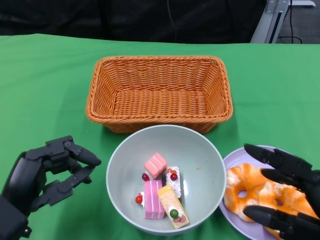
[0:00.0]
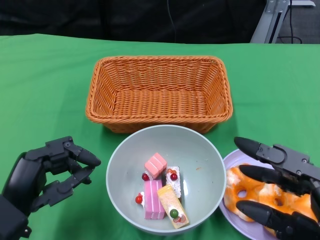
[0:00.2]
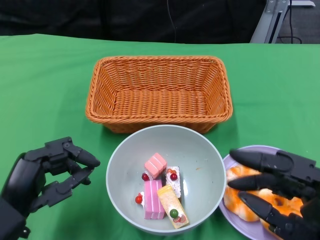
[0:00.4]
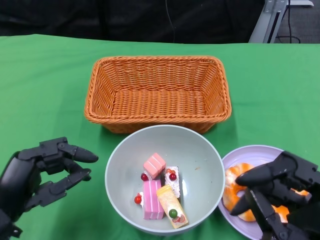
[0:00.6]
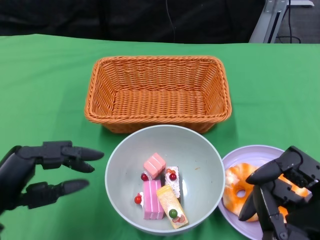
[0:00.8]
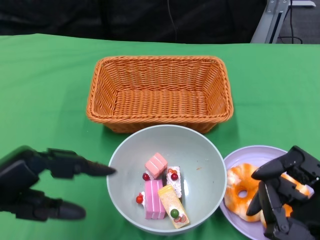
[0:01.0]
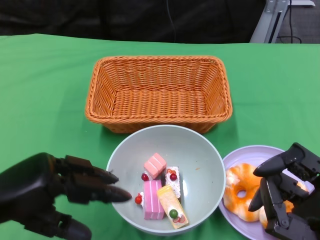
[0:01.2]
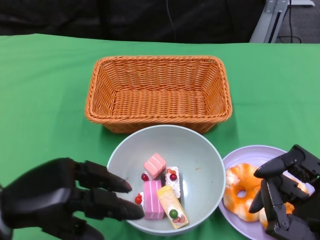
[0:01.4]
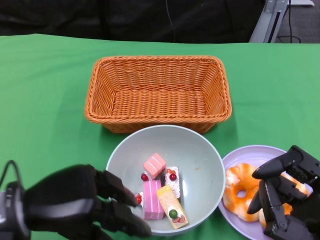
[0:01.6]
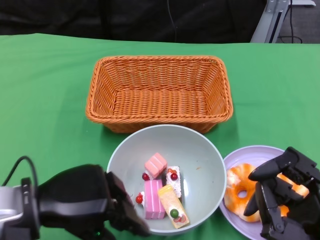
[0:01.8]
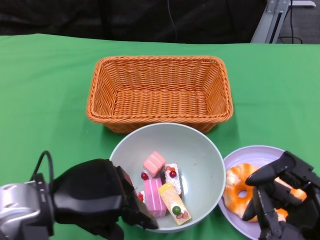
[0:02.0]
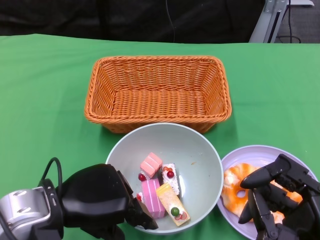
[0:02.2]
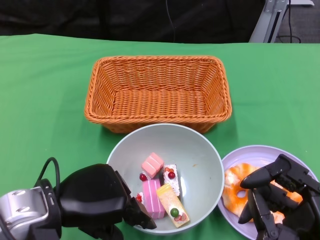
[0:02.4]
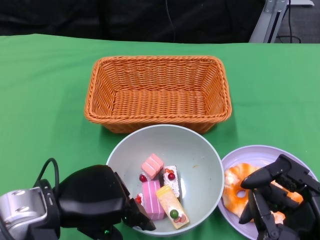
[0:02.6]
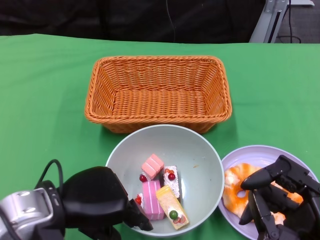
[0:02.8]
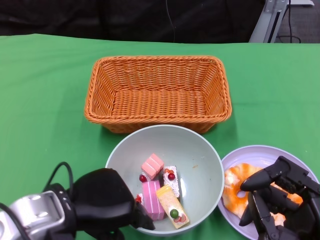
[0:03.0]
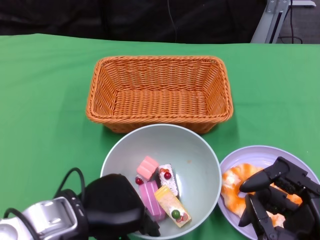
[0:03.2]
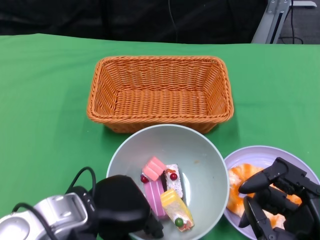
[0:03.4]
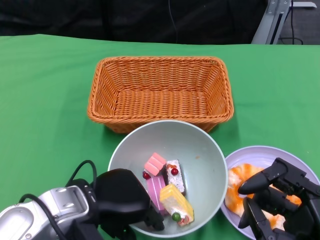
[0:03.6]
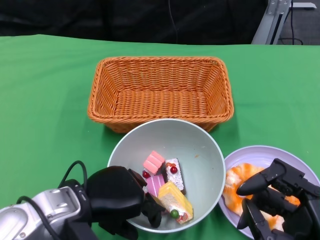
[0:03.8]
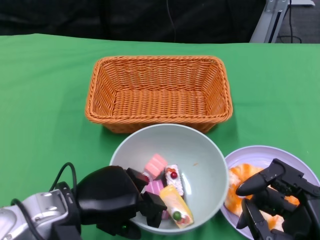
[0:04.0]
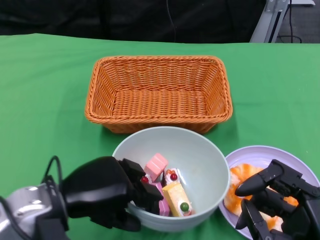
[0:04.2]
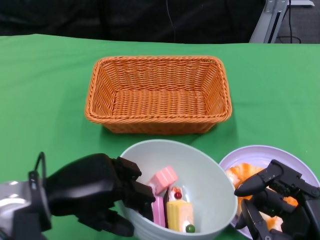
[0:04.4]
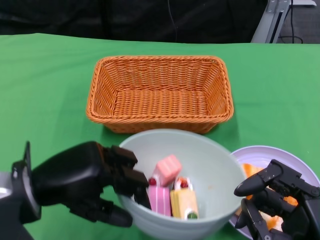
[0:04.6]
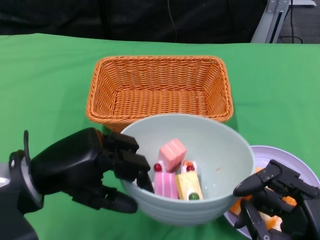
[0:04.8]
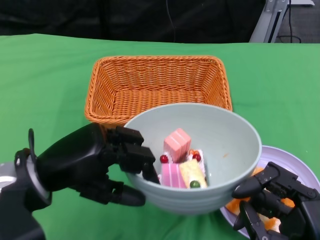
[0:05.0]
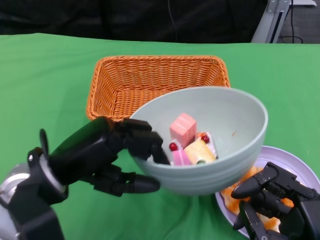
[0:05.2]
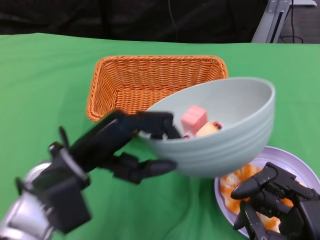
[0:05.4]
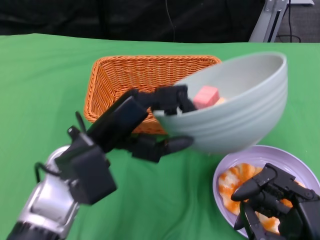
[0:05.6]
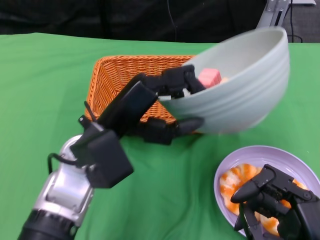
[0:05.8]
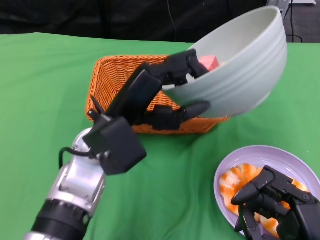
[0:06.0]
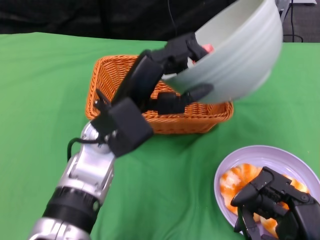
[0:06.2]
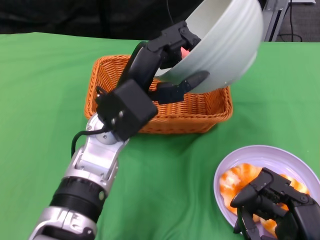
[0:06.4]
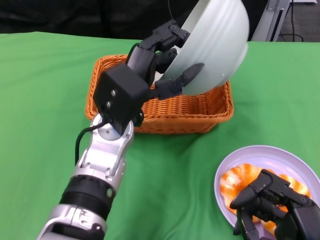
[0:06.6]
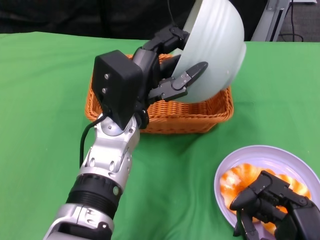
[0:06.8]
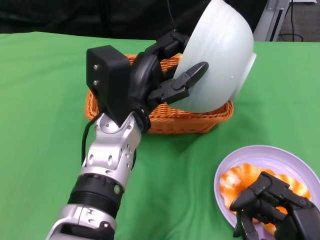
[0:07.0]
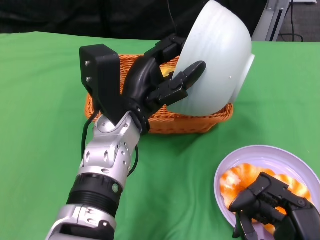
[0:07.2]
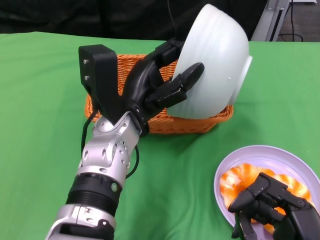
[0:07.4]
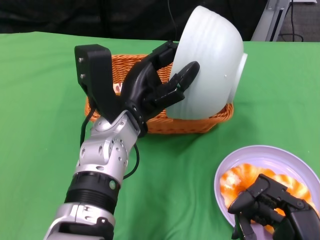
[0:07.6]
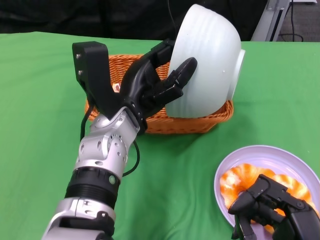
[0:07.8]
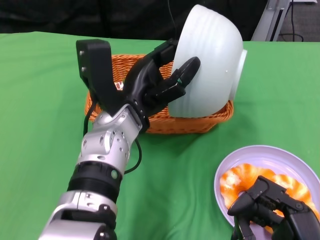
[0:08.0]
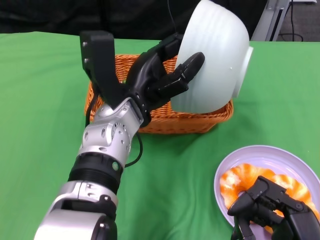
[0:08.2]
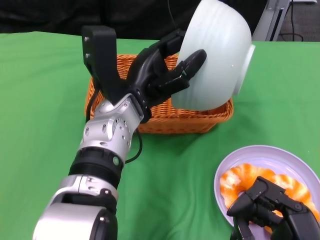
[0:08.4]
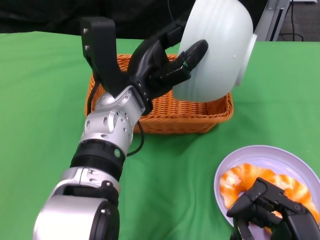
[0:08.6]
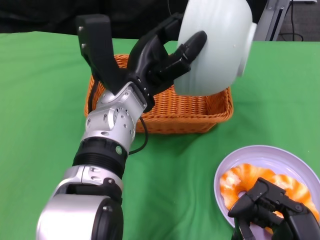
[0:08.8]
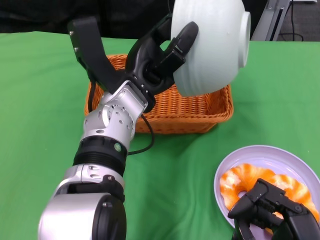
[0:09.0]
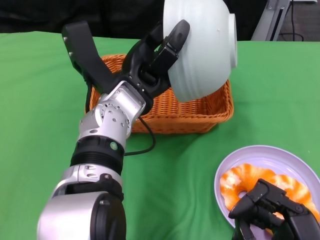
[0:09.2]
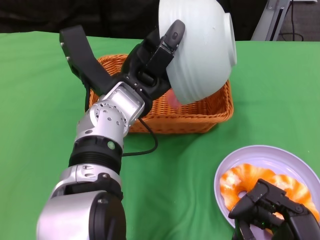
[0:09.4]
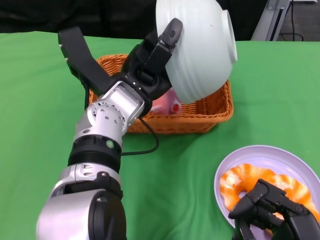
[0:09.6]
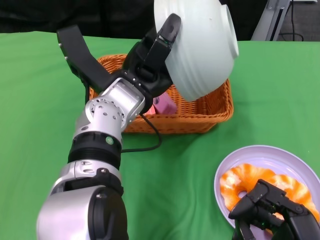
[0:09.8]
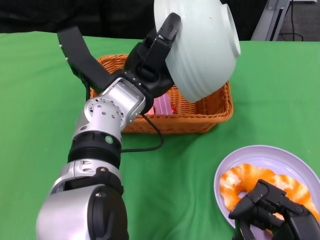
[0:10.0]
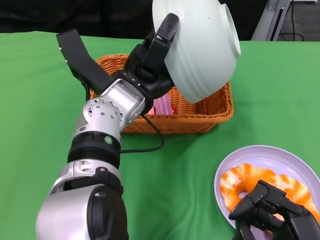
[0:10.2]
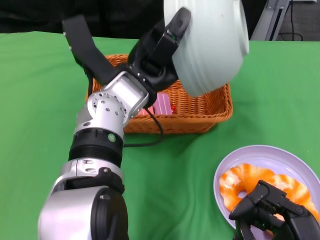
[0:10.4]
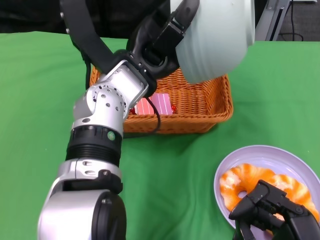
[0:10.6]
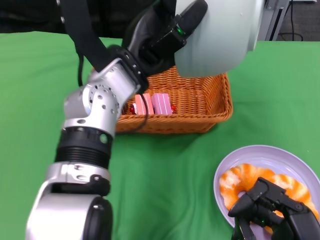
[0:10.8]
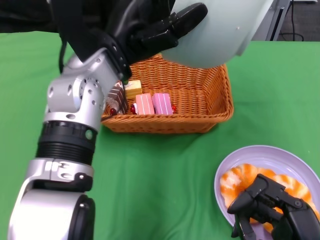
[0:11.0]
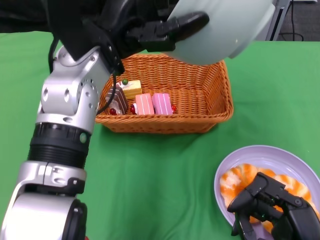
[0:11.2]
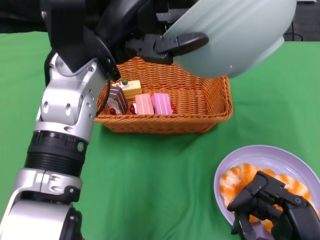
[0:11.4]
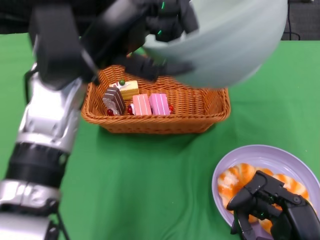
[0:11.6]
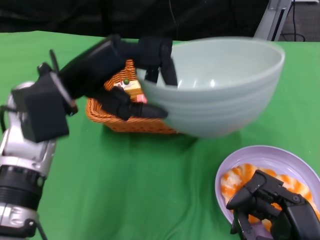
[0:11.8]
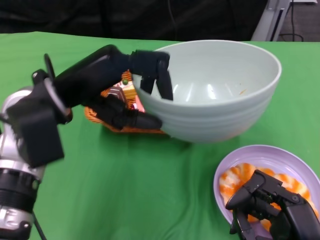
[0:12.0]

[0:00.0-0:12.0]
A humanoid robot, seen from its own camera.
Step, 0:00.2 to 0:03.8: Grasp the bowl with the left gripper.
Step, 0:04.0 to 0:10.4: Pour the cake into the basket with the left gripper.
0:00.0 to 0:01.6: The right hand moves approximately 5 cm.
0:04.4 to 0:06.0: The left hand goes approximately 10 cm to the right and forward.
0:10.4 to 0:12.0: The left hand heads to the left, covering approximately 10 cm.

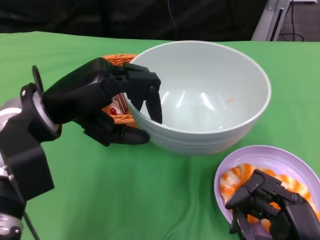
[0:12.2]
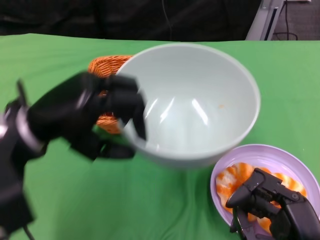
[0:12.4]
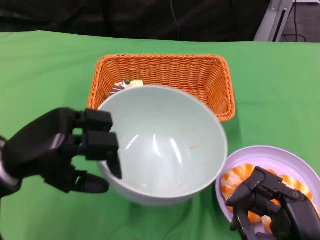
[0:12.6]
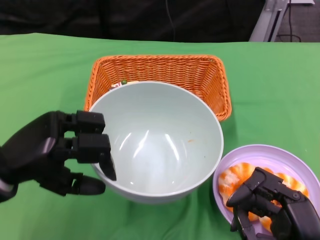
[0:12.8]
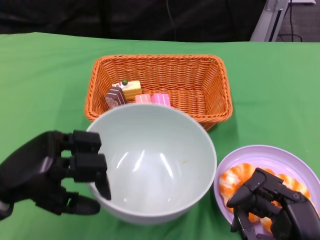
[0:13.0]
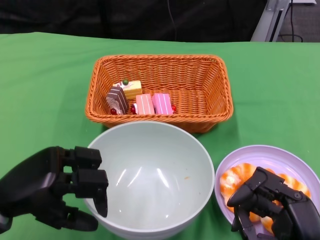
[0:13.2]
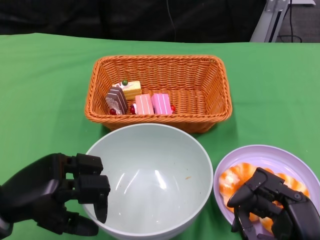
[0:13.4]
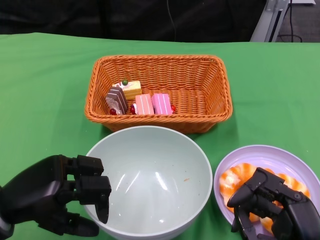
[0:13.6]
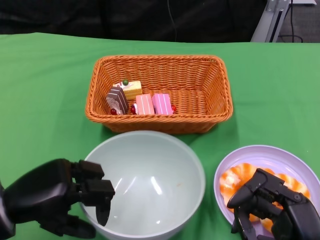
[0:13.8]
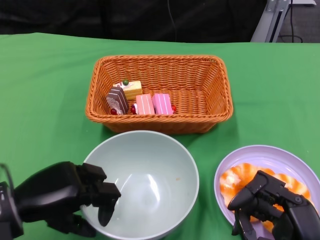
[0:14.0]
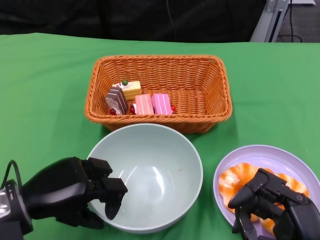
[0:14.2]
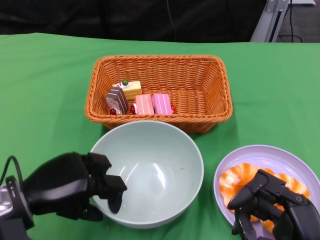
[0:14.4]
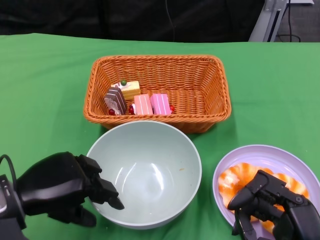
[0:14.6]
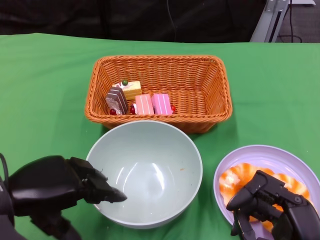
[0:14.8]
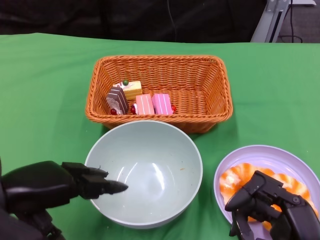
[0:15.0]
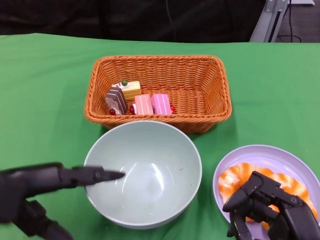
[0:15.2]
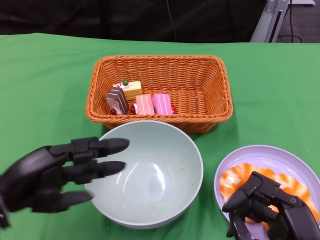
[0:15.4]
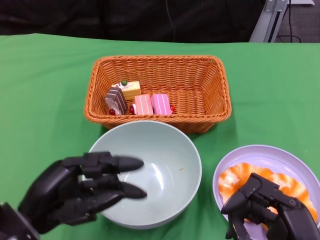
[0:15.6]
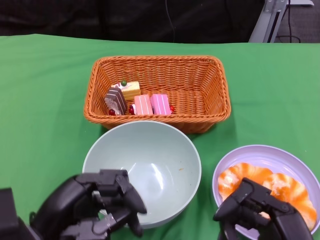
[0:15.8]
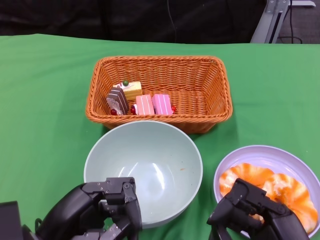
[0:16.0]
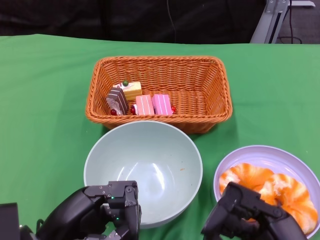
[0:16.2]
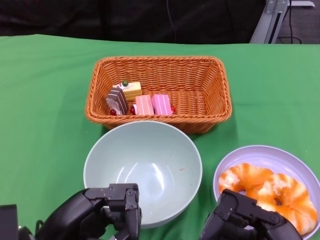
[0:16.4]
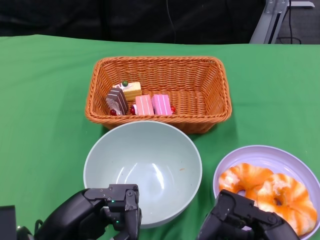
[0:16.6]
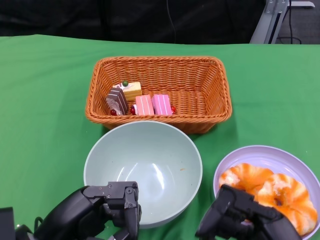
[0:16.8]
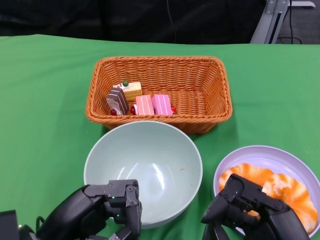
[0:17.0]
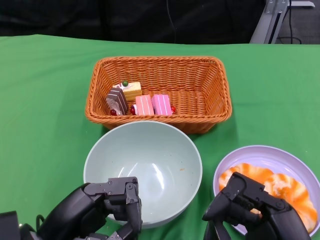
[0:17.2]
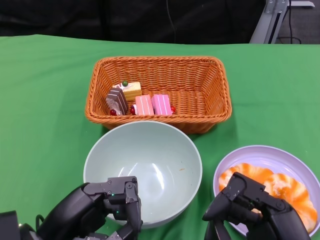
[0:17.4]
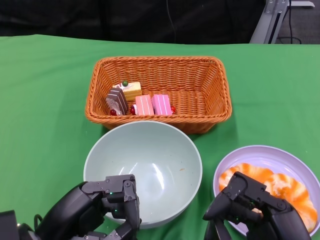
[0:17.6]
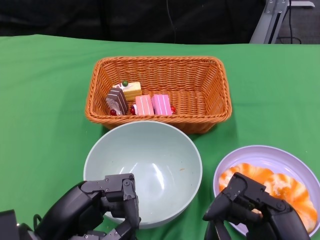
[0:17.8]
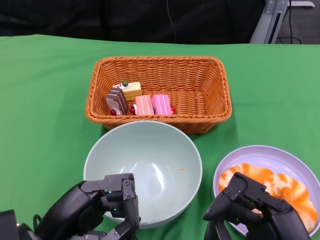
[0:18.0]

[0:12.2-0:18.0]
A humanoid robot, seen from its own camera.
Step, 0:12.2 to 0:14.6: Place the bowl on the table with the left gripper.
0:12.2 to 0:13.6: The left hand heads downward, backward and to the left, covering some 15 cm.
0:15.0 to 0:16.6: The left hand heads backward, covering roughly 5 cm.
0:16.6 to 0:18.0: There are only small adjustments of the hands.
